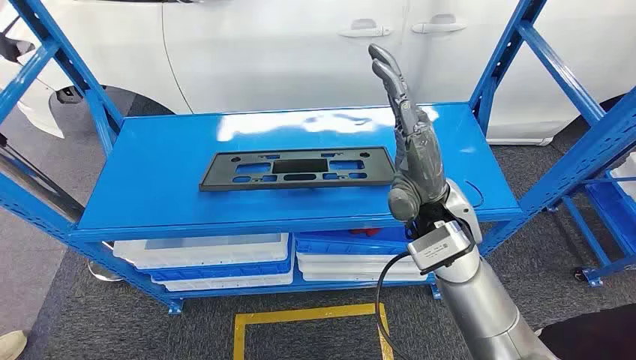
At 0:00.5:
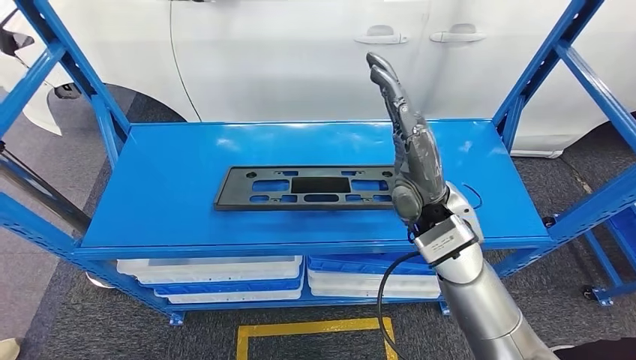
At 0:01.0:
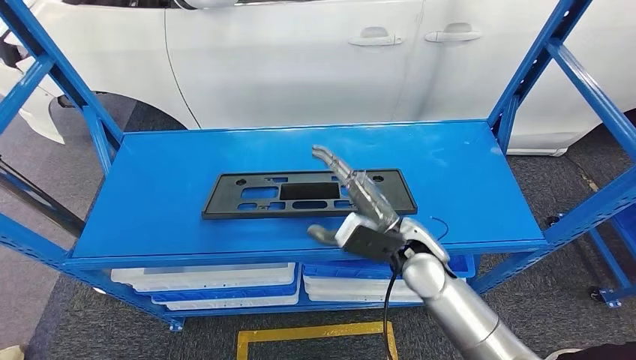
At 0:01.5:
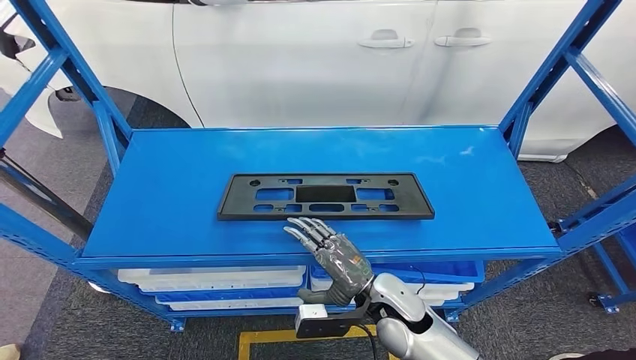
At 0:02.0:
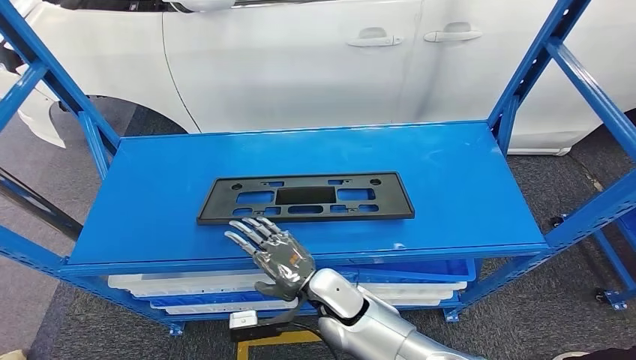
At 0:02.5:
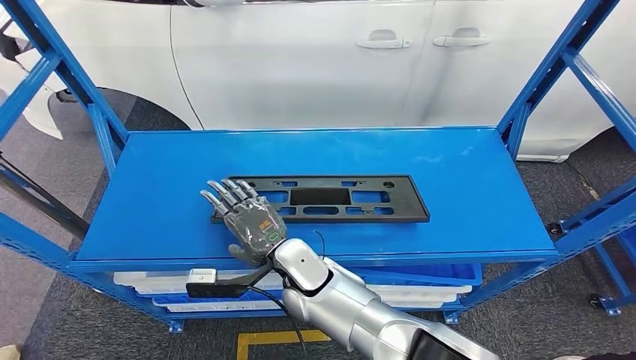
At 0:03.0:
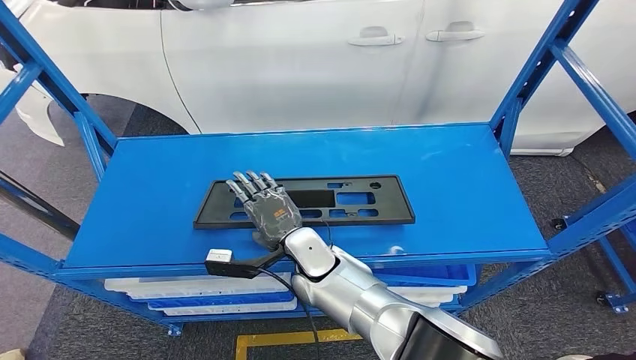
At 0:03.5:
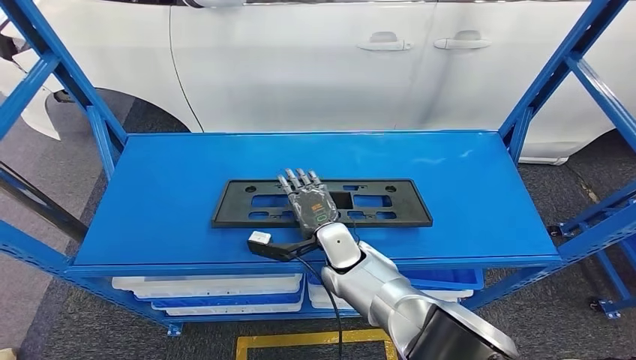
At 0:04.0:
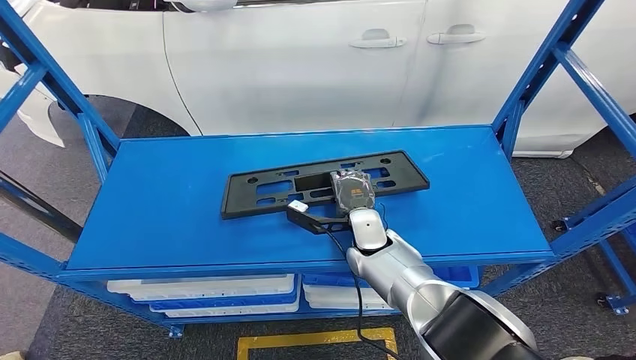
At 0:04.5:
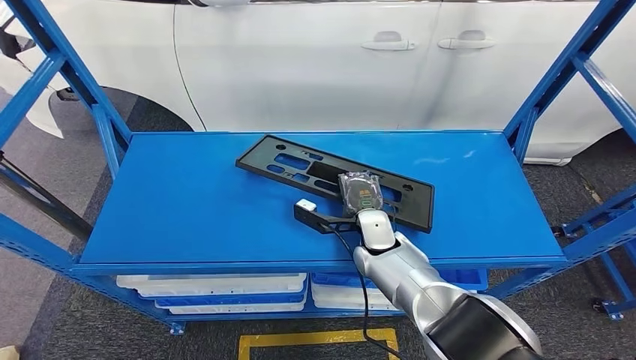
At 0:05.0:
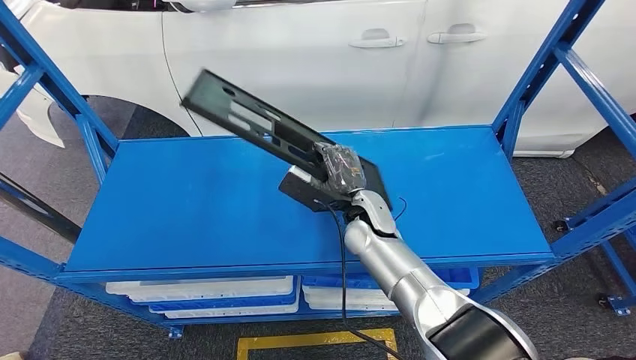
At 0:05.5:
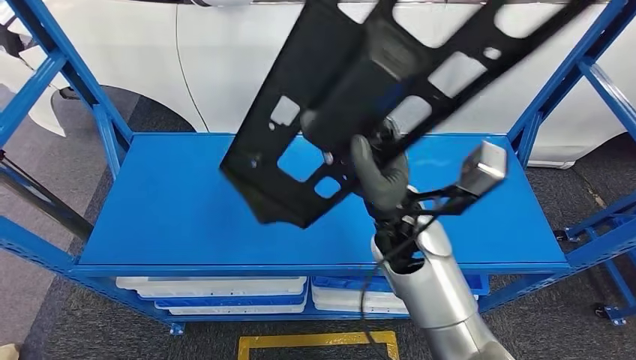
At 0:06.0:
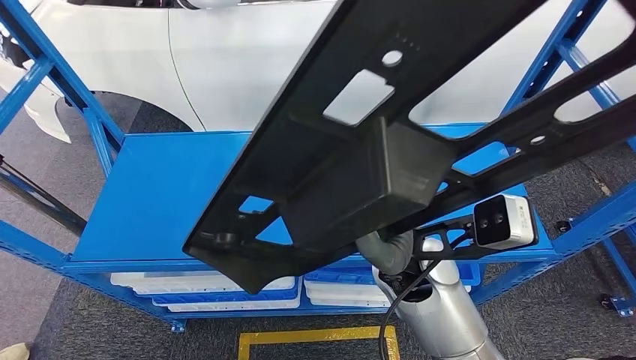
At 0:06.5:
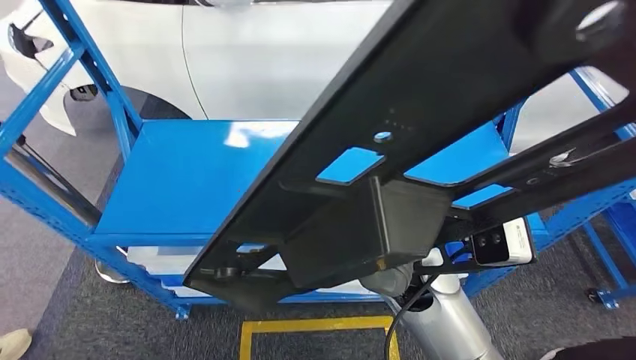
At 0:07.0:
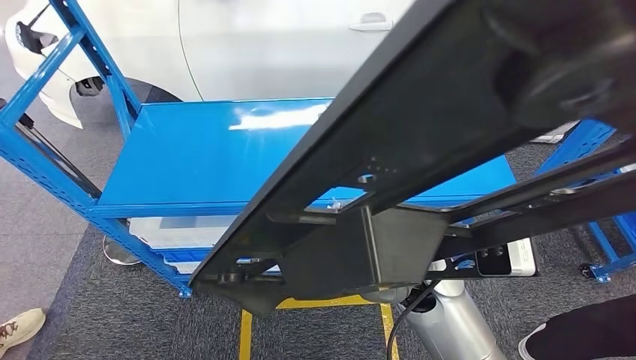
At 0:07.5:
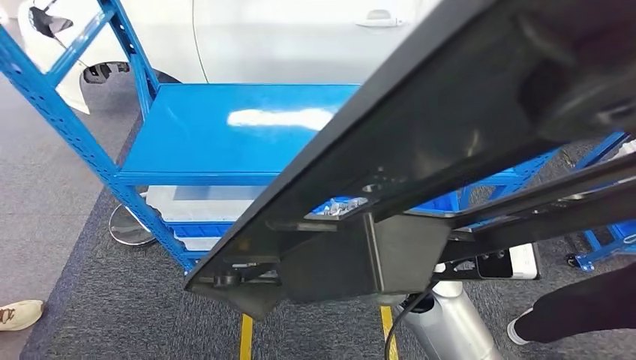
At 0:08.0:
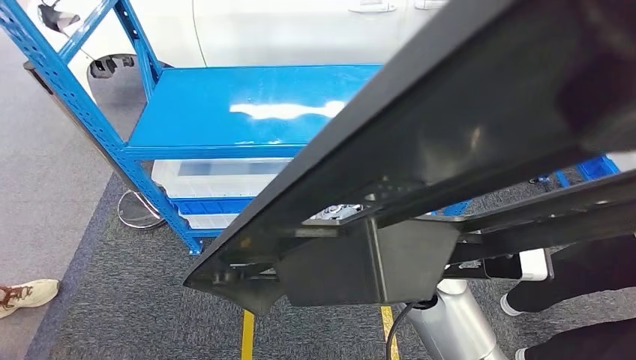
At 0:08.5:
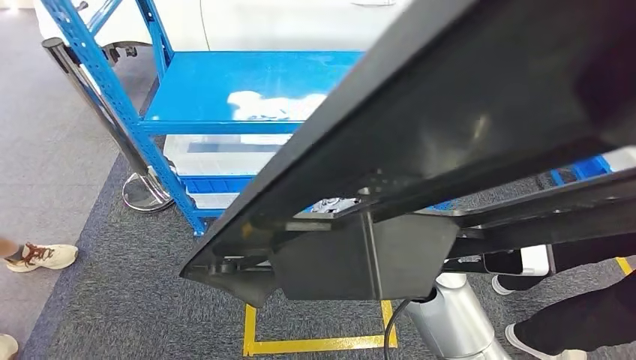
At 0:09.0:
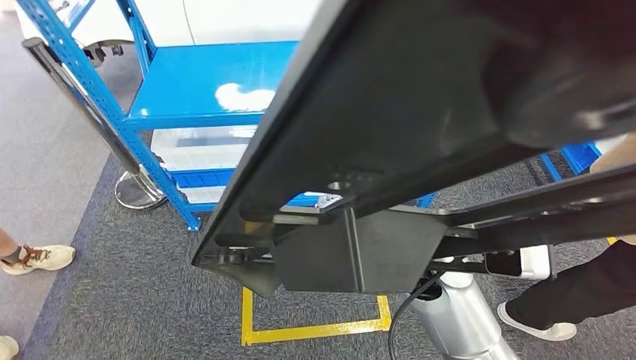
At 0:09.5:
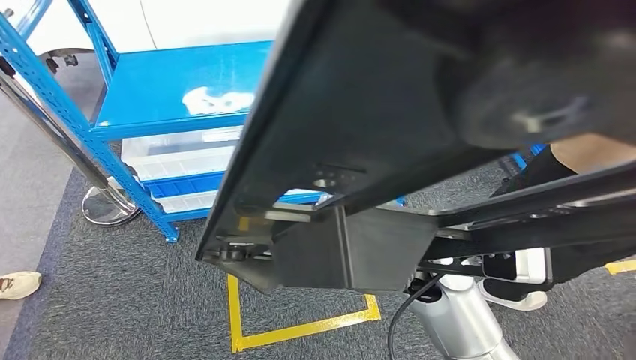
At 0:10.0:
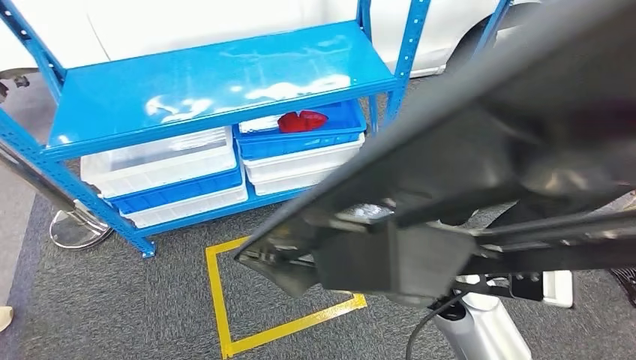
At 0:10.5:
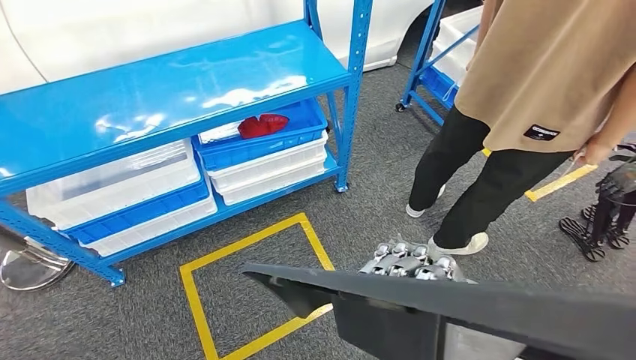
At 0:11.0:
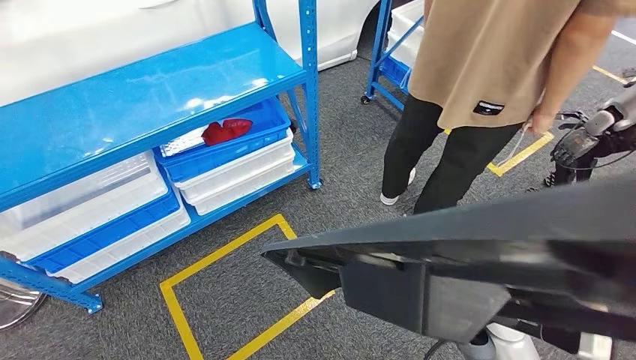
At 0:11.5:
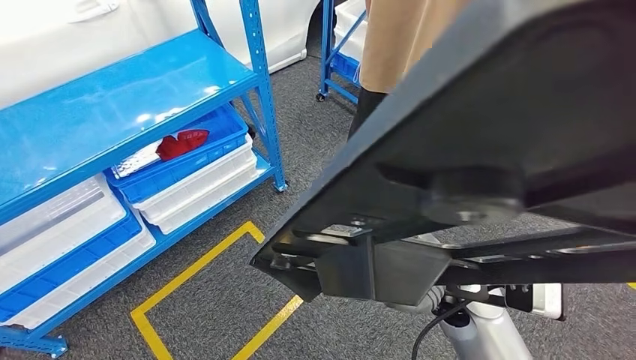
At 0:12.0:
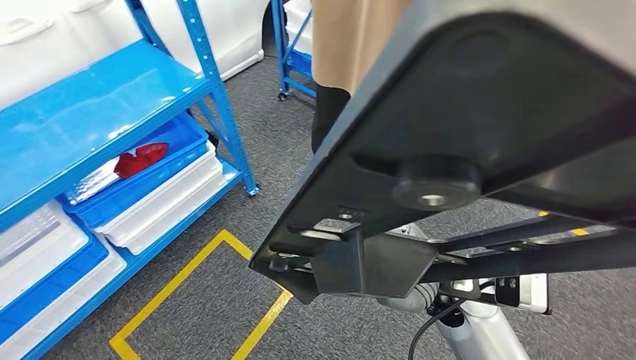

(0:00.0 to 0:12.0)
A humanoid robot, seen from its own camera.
Step, 0:00.0 - 0:06.0: Pick up the small component from the shelf.

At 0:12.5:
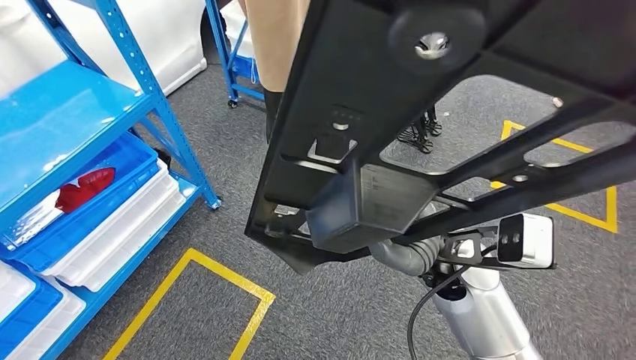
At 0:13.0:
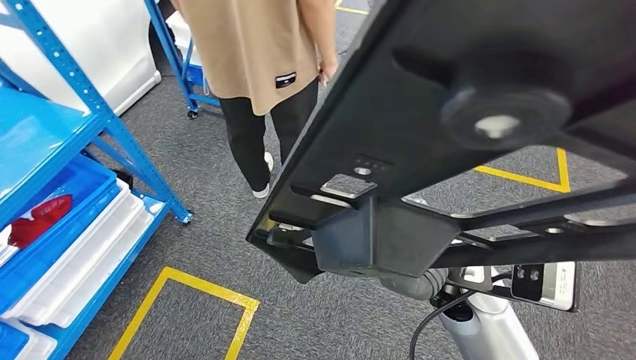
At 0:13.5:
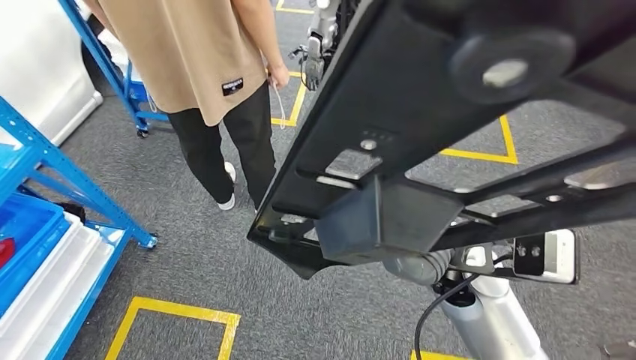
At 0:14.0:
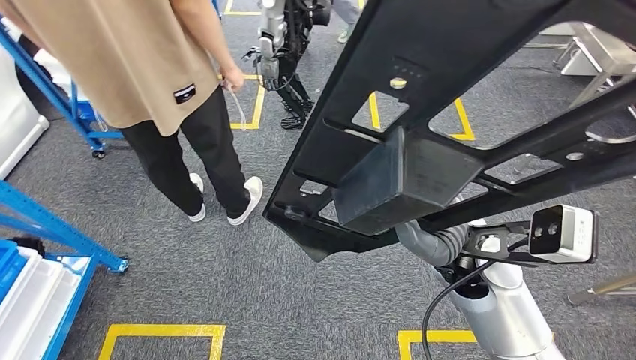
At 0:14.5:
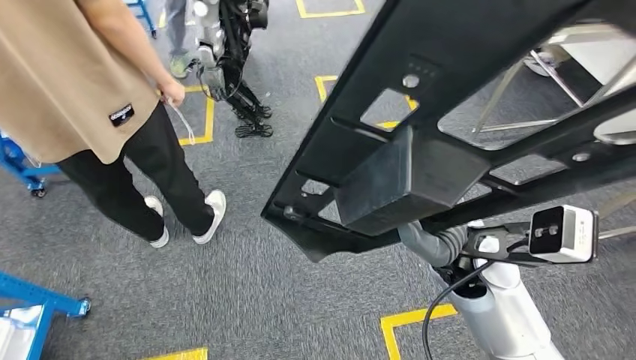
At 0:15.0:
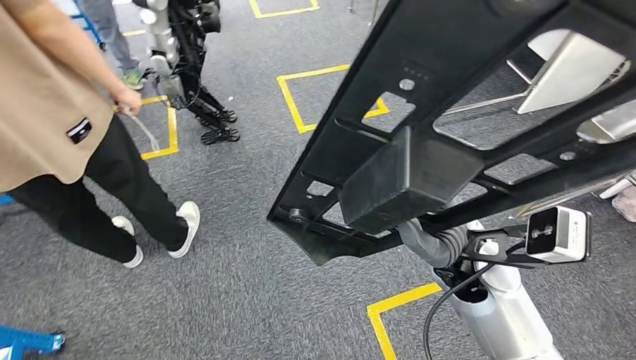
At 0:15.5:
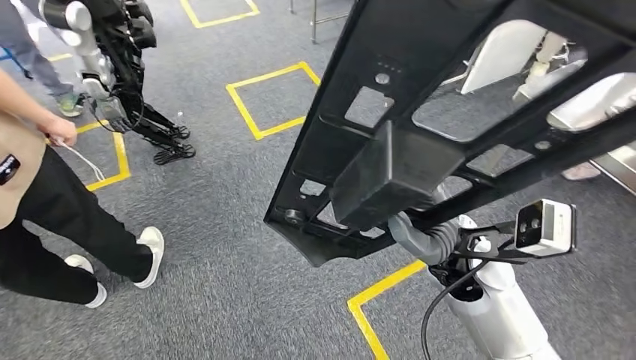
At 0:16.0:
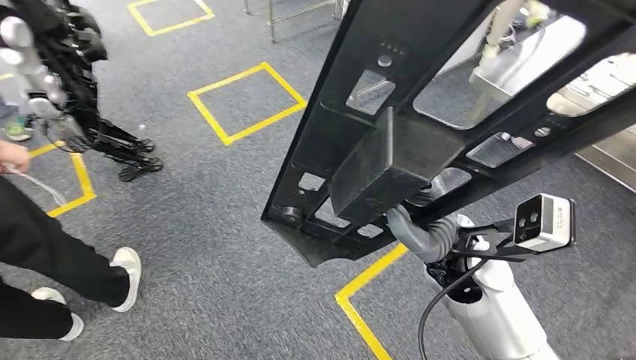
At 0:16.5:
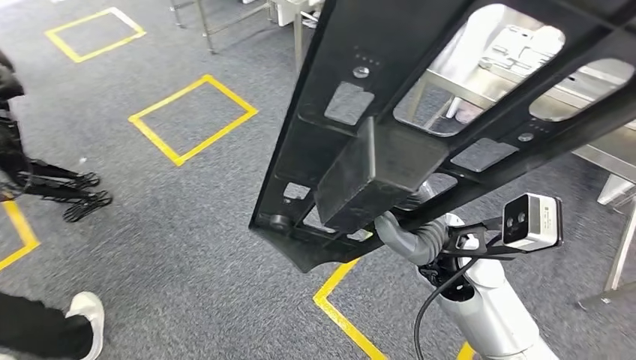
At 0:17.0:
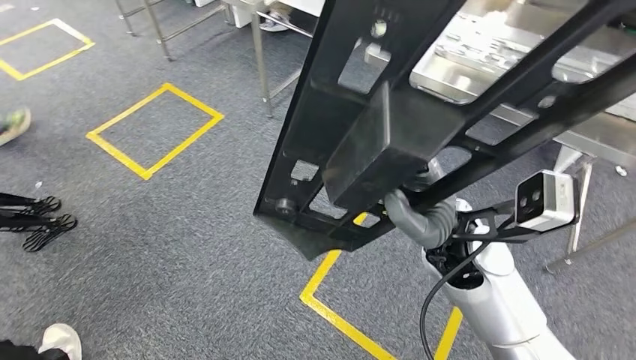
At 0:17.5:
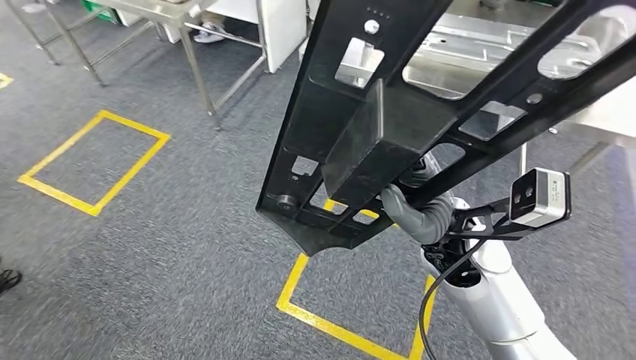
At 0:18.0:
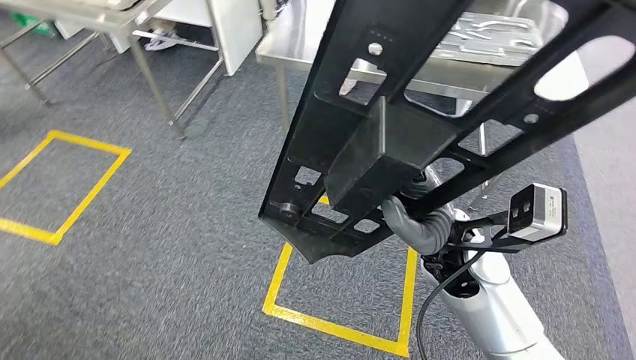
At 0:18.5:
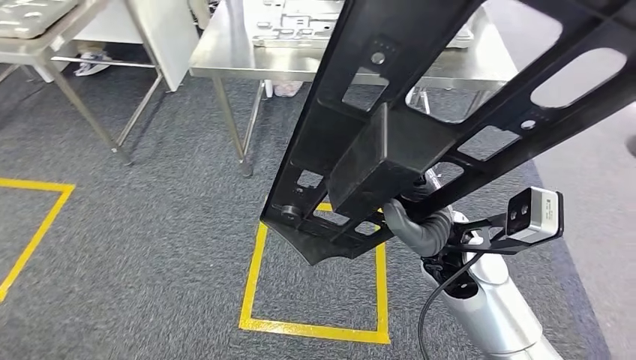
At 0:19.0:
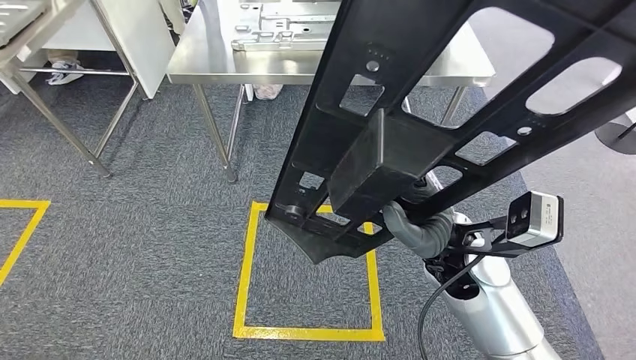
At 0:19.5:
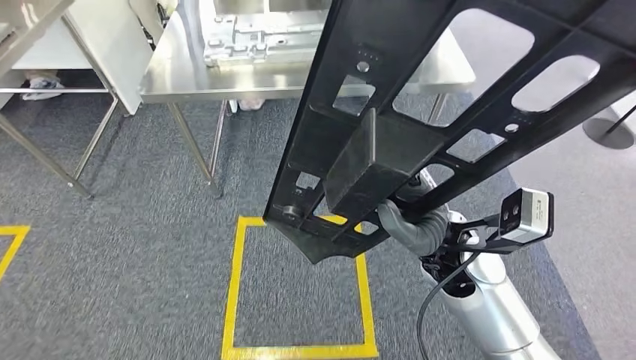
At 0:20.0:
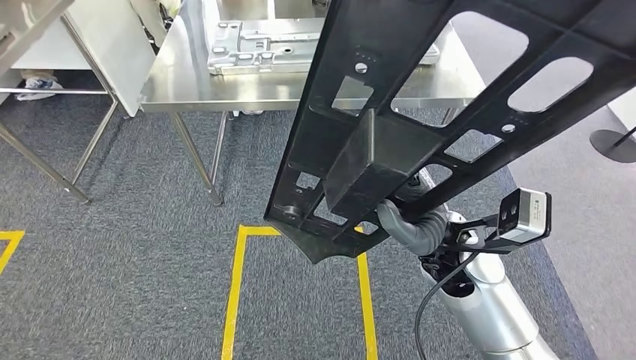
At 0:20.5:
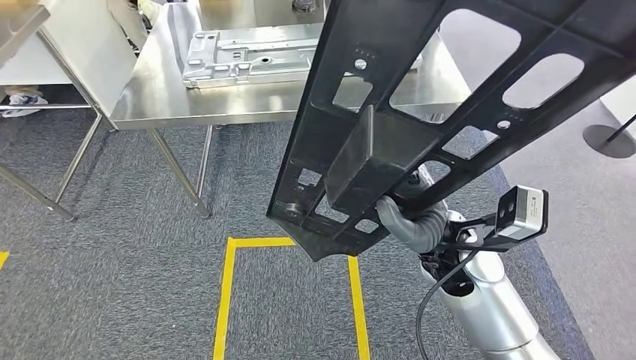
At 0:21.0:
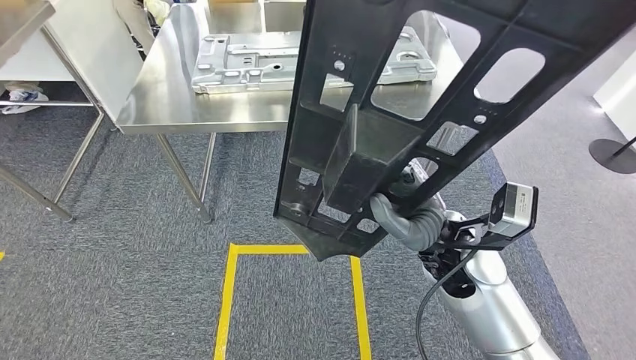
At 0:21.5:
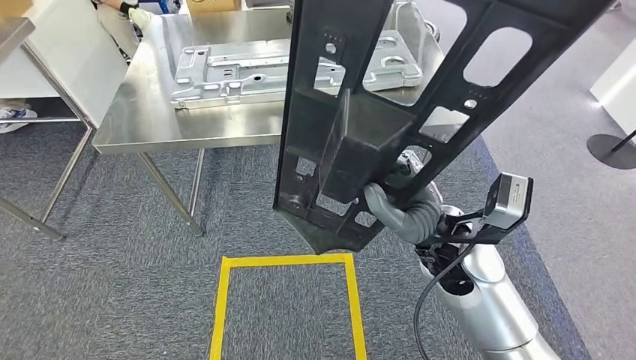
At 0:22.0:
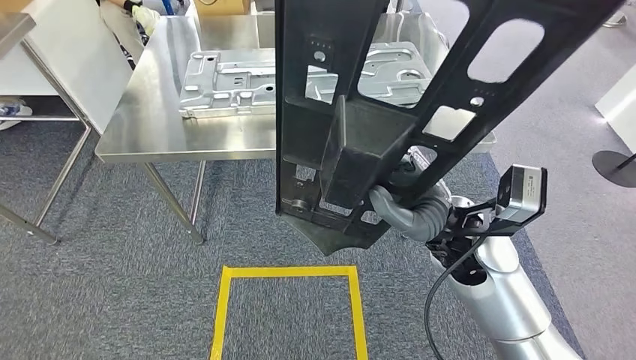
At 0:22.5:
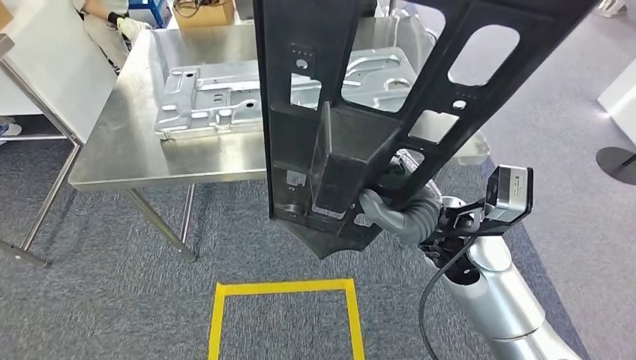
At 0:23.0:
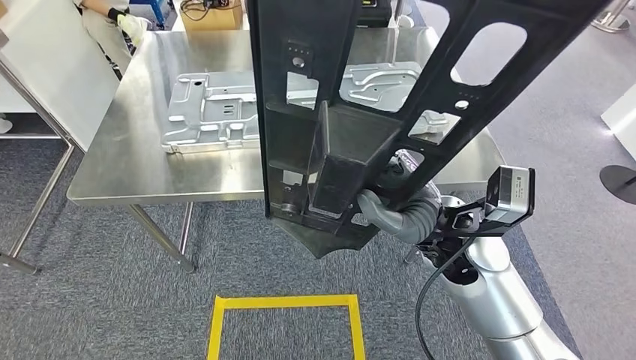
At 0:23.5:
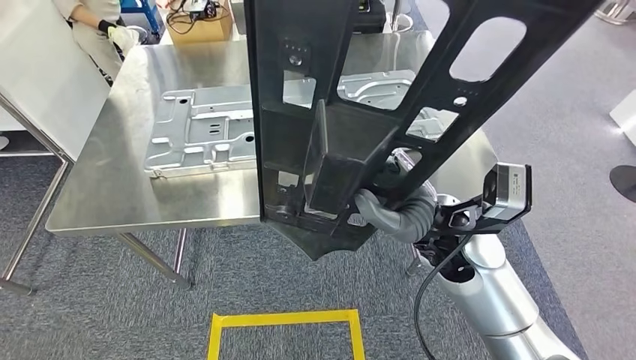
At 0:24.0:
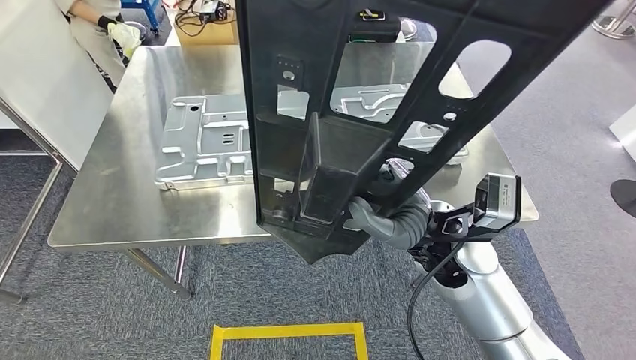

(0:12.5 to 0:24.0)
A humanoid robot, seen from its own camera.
Step, 0:12.5 - 0:23.5: Move the small component to the workbench.
